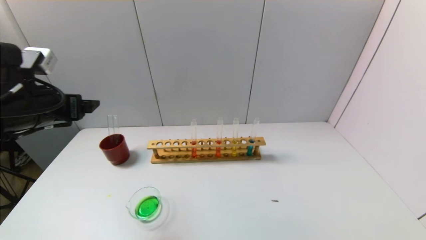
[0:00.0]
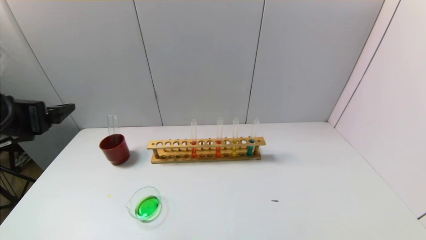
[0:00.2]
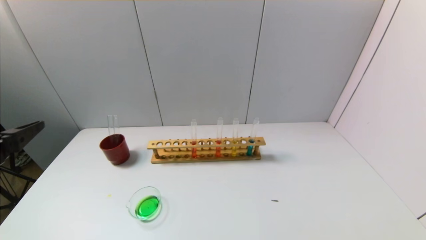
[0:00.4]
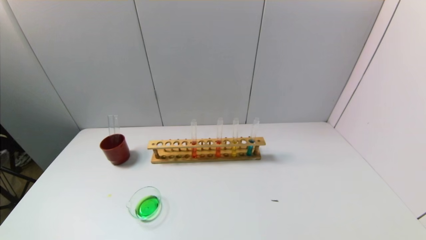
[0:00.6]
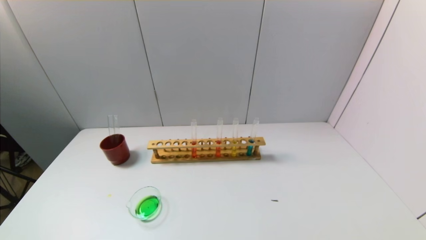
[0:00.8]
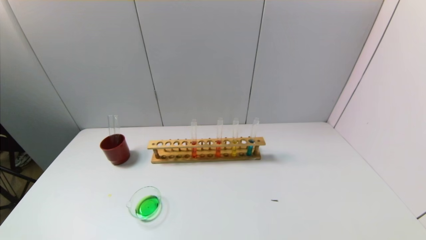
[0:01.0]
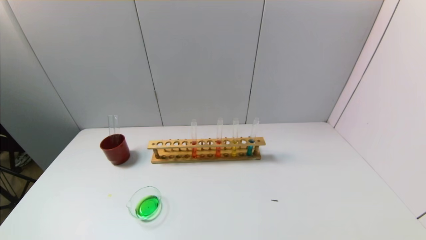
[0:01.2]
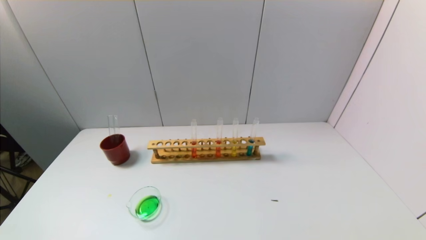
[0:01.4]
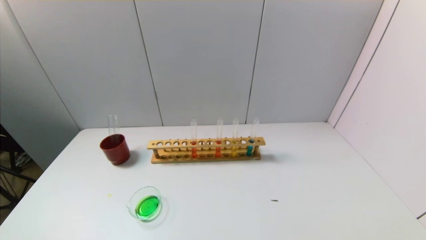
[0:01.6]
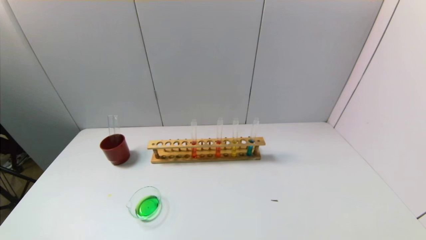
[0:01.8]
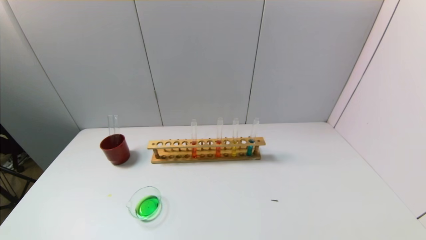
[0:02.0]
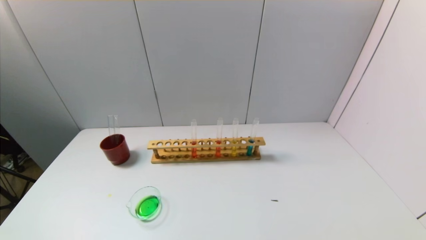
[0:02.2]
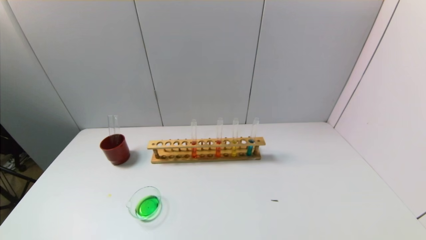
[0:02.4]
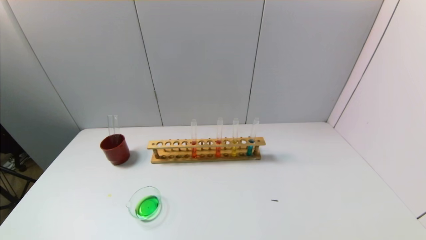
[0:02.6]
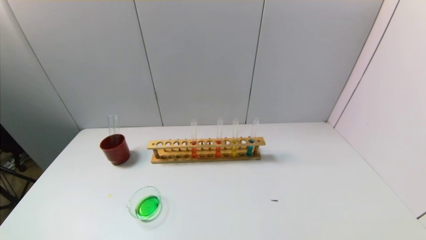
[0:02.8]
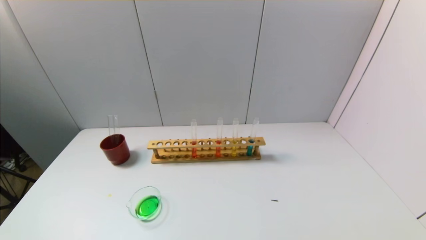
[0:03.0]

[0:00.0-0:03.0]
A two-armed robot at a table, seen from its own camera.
Task of the whole recording: pick up the test tube with yellow pigment and the test tube with blue pigment by grippers and pour them into the beaker.
0:00.0 to 0:01.6: The left gripper travels backward and downward by about 30 cm.
